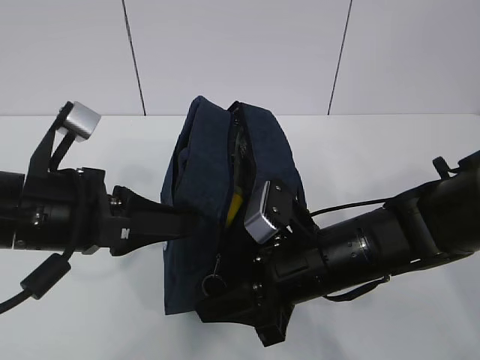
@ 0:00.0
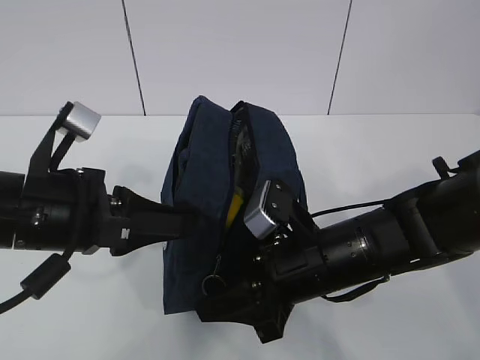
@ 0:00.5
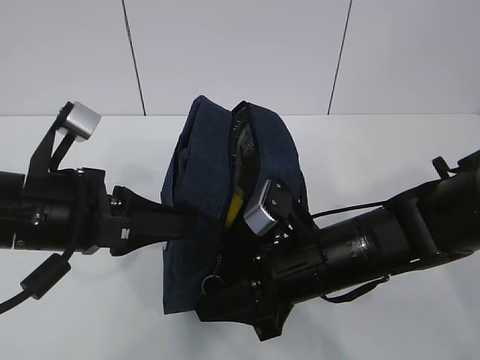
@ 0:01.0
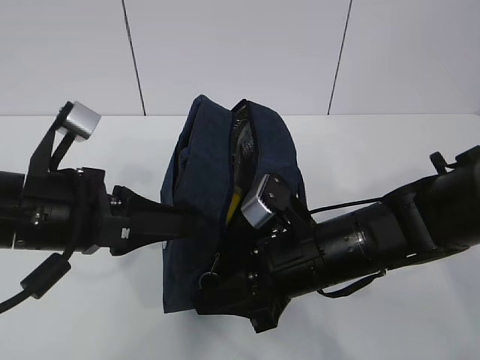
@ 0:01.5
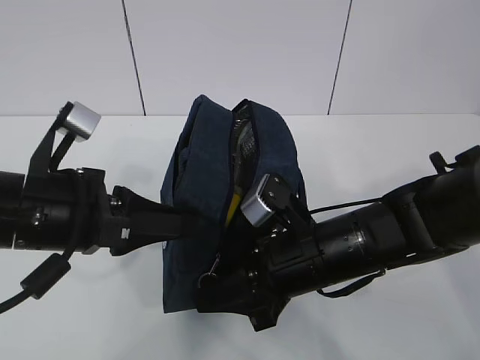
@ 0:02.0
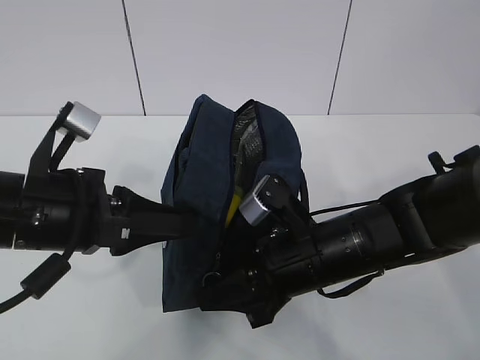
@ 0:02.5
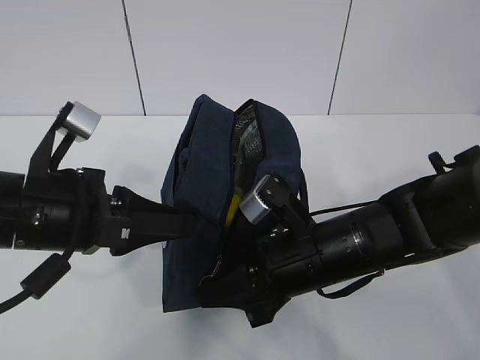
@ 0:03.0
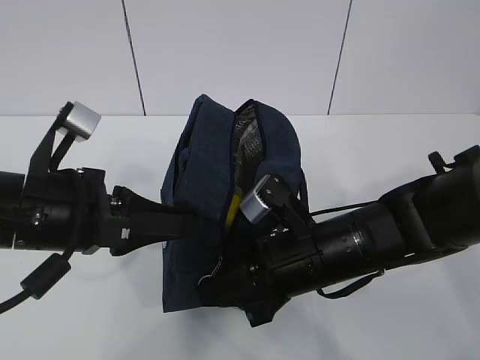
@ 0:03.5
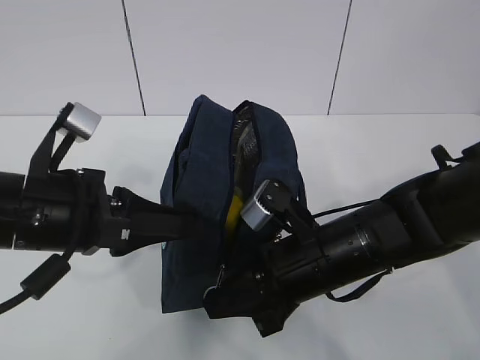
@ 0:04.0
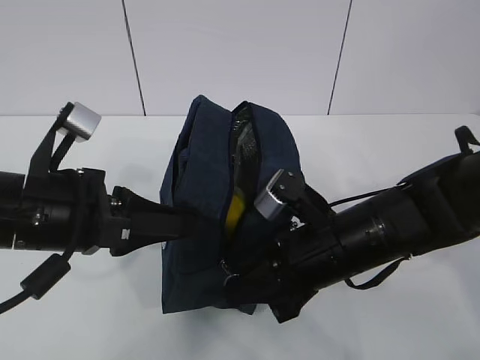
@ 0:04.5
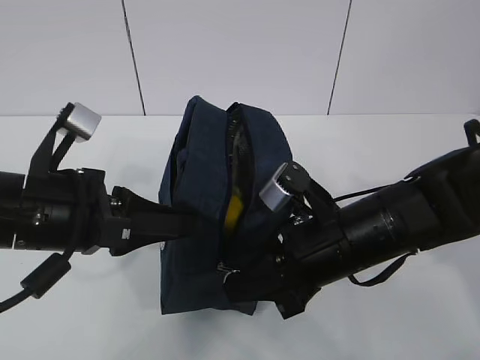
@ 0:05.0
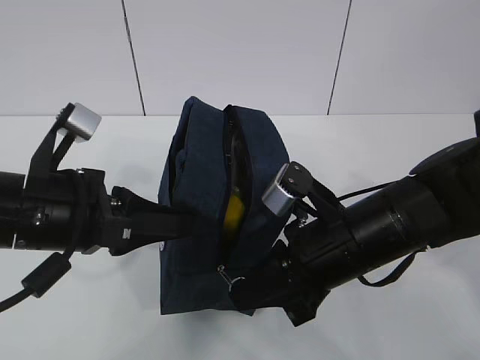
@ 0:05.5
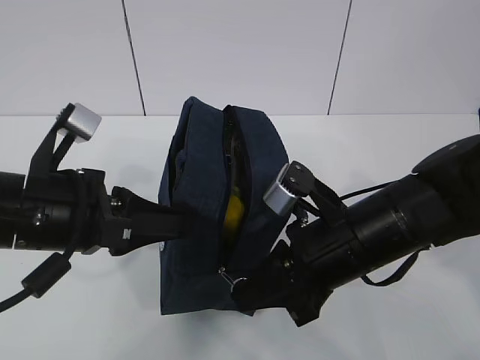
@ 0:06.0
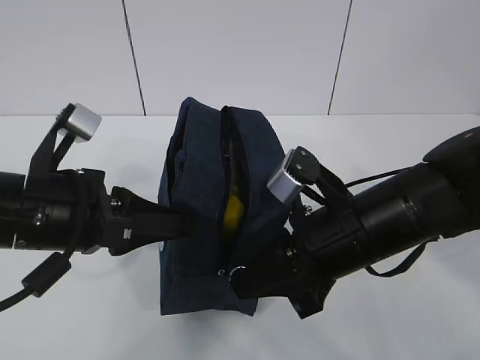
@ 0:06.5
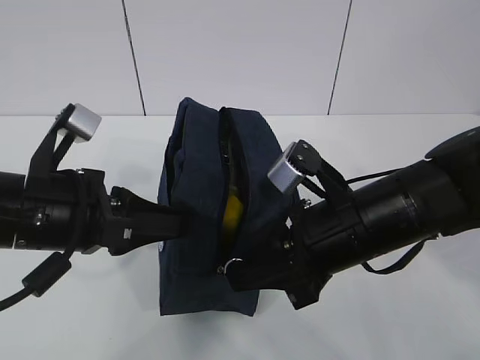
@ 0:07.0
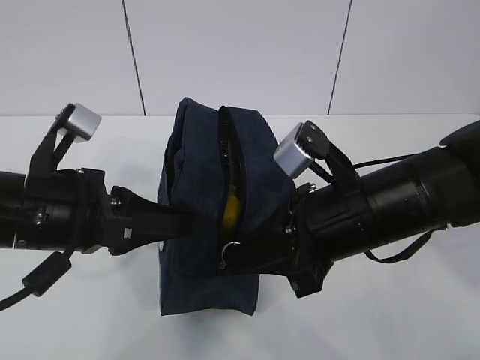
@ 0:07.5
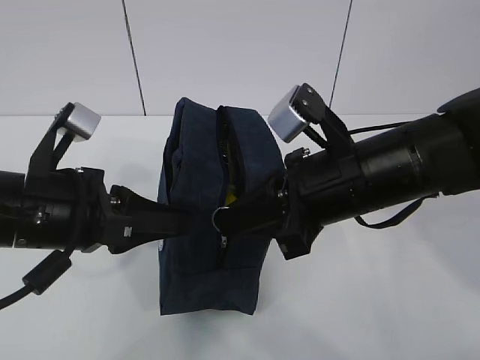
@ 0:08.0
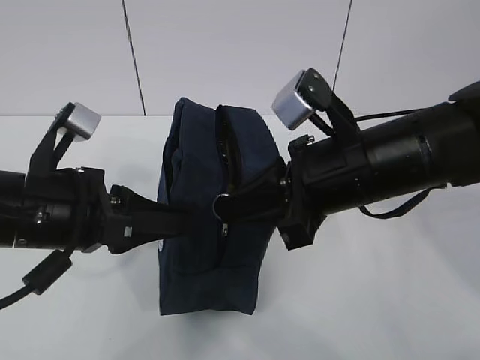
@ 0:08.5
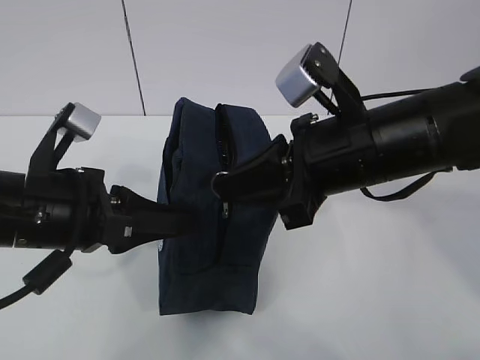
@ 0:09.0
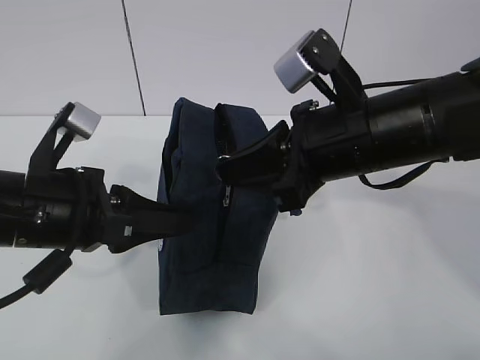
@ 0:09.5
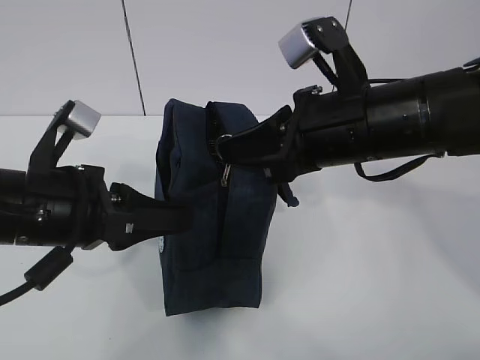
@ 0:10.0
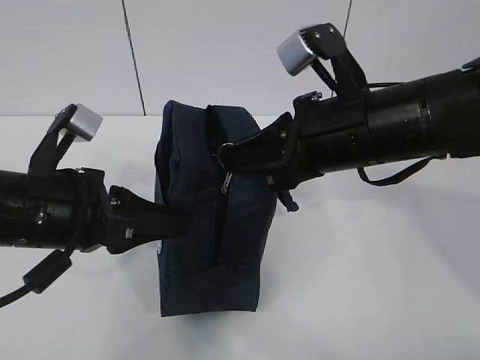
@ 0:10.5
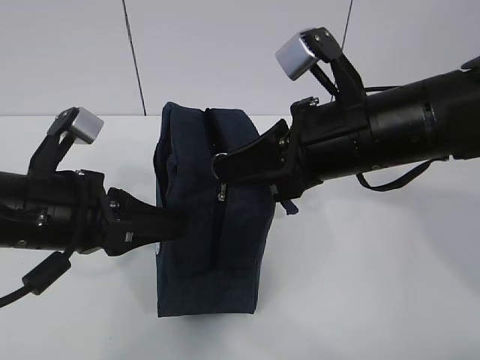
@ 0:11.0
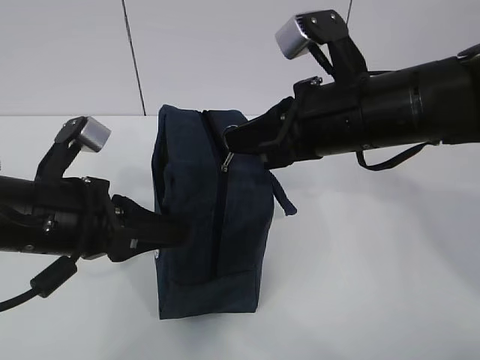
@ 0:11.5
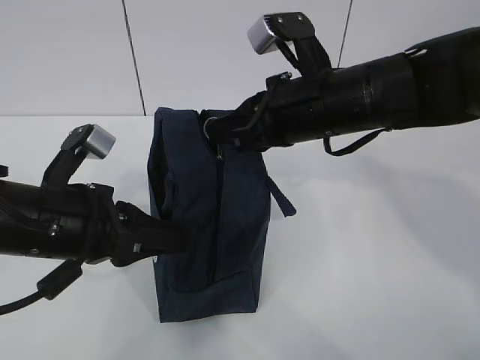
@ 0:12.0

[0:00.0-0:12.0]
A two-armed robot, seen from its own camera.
Step, 0:00.5 to 0:07.5: Pull the zipper with your right hand.
0:00.0 to 0:02.0: The grippers make only small movements.
0:02.0 to 0:04.0: The right gripper closes up.
0:04.0 to 0:06.0: The grippers move only a little.
0:06.0 to 0:08.0: The right gripper shifts approximately 5 cm upward.
0:08.0 to 0:10.0: The grippers stay close to where they were, moving slightly.
0:10.0 to 0:12.0: The right gripper moves about 5 cm.

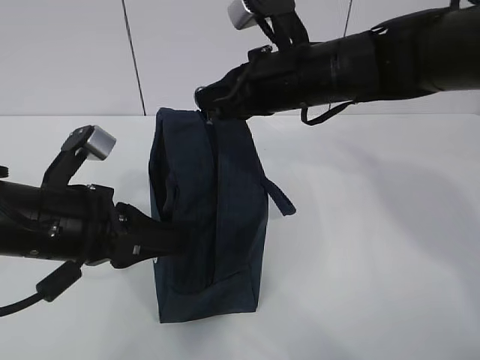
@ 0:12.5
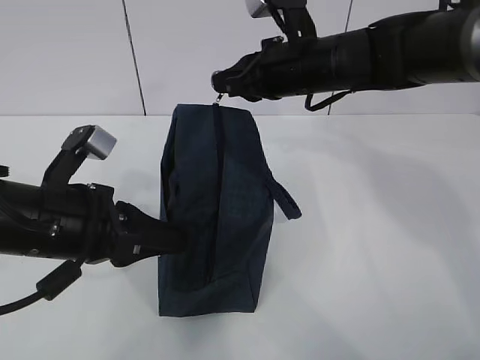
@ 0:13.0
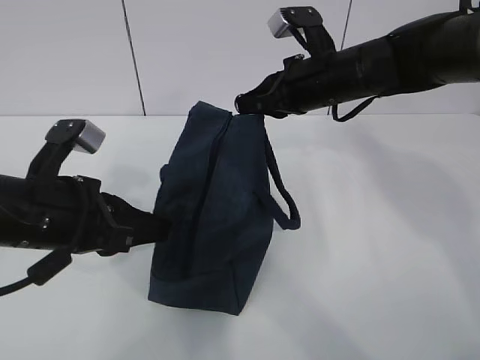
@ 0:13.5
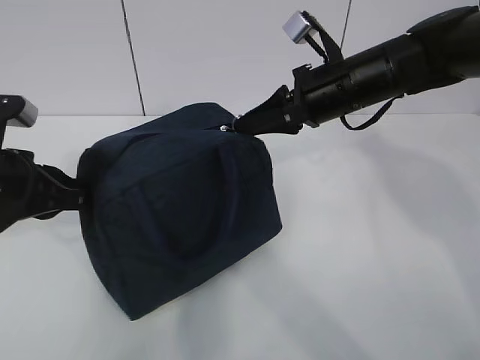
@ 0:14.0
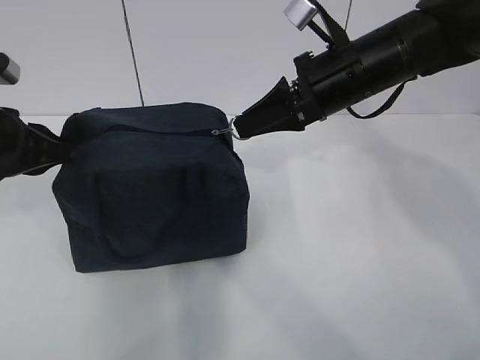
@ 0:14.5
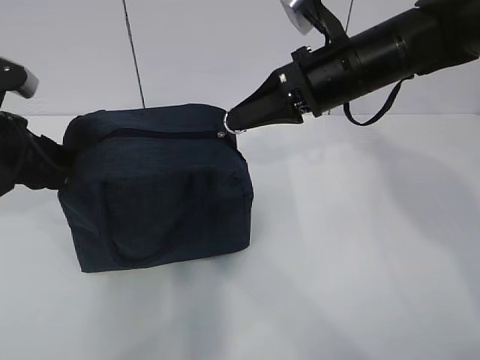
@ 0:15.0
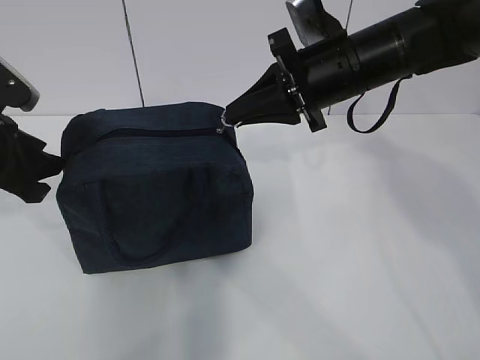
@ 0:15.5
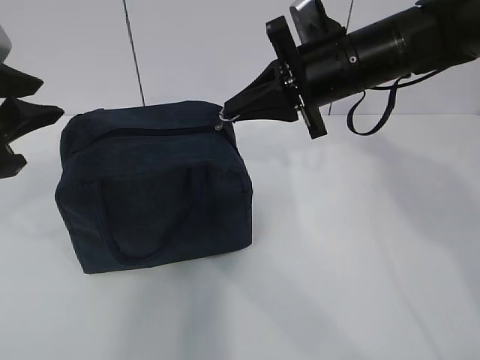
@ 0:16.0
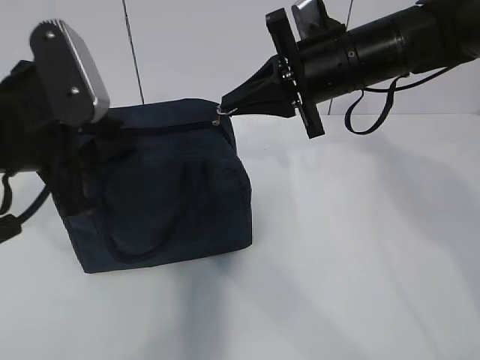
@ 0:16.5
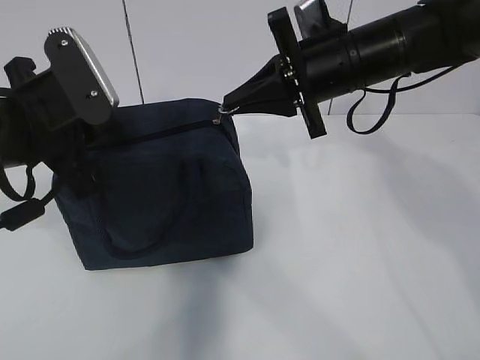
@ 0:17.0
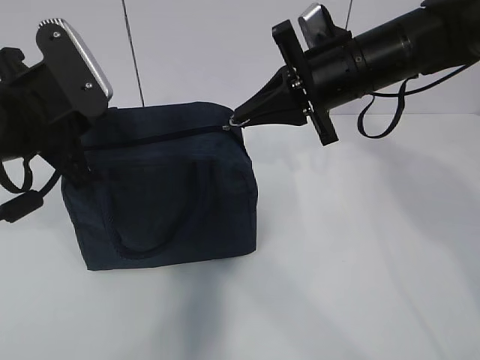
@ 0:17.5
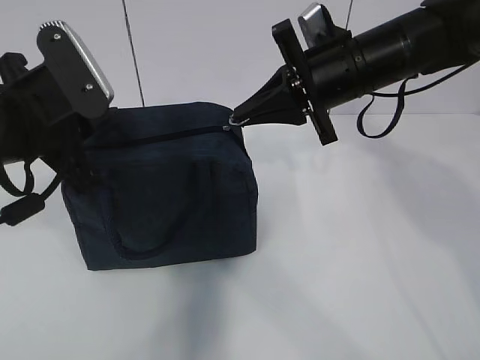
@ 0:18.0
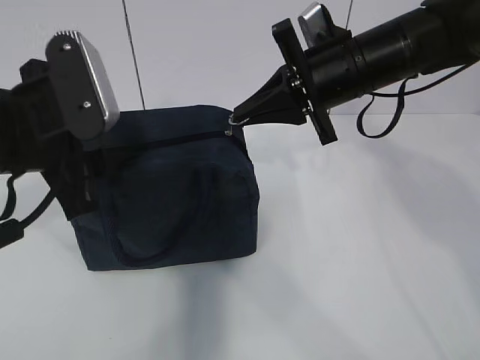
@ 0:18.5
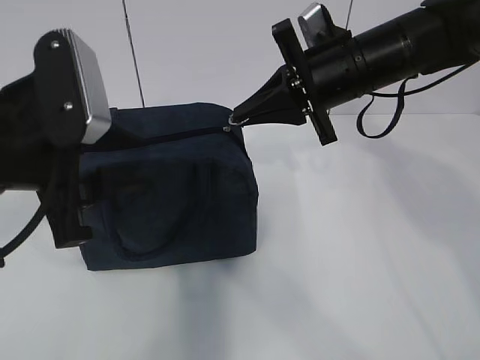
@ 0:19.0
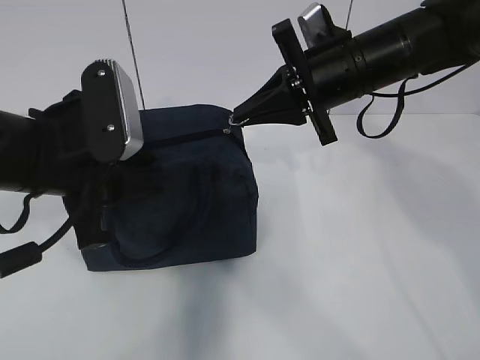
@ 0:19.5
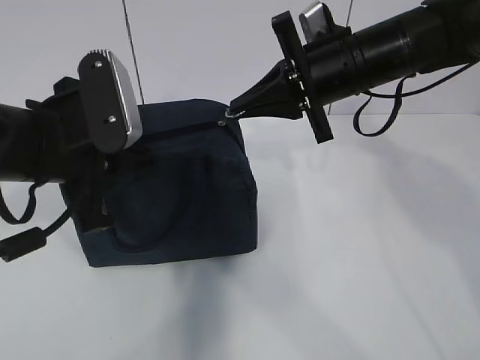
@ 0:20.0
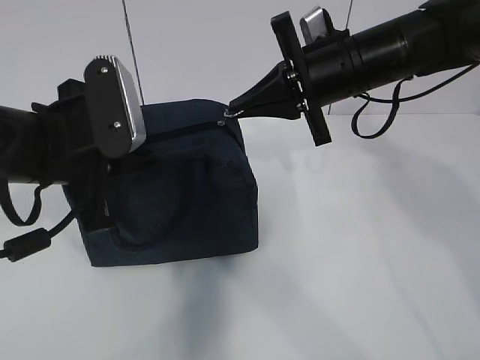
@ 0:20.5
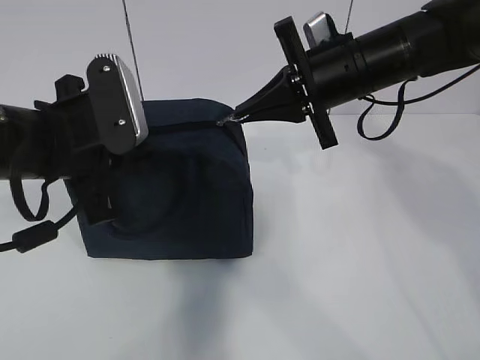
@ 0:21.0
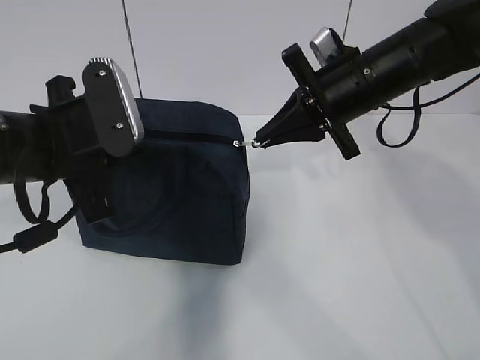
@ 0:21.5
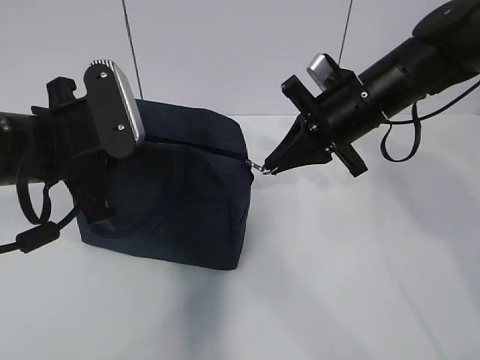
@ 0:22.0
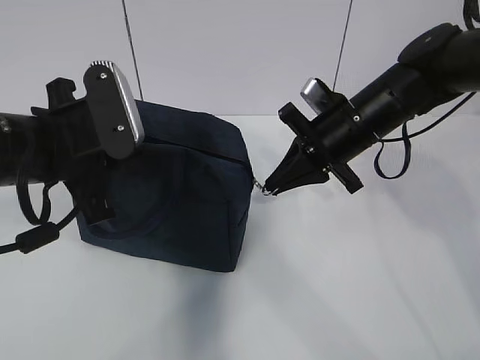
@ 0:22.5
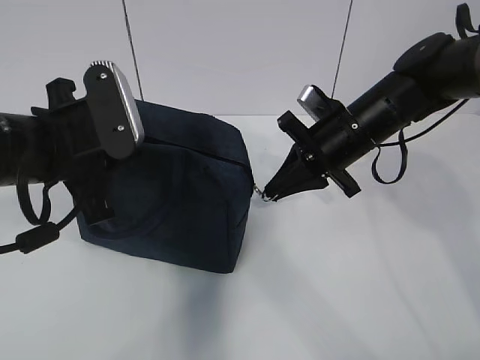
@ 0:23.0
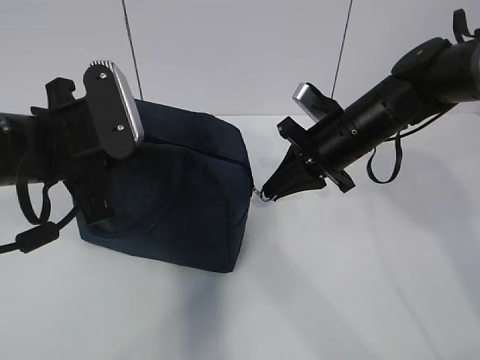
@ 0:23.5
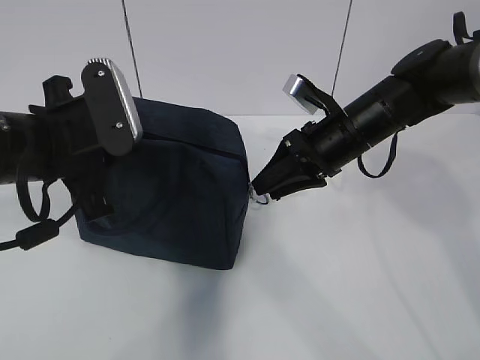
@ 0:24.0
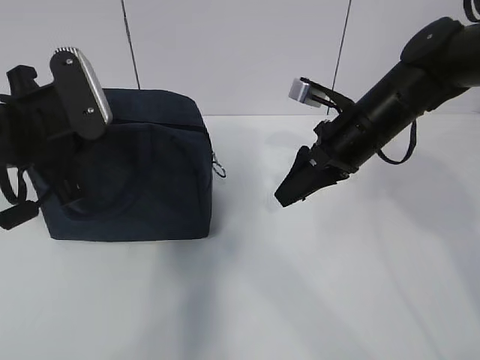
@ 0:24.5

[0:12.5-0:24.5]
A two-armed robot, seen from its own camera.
0:12.5 to 0:14.5: The left gripper heads to the left and forward, covering about 10 cm. Meanwhile the right gripper travels to the right by about 5 cm.
0:14.5 to 0:16.5: The left gripper is displaced to the right by about 5 cm, and opens up.
0:16.5 to 0:18.5: The left gripper closes, then opens again.
0:18.5 to 0:20.5: The left gripper closes its fingers.
0:20.5 to 0:22.5: The right gripper shifts approximately 5 cm downward.
0:22.5 to 0:24.5: The right gripper opens.

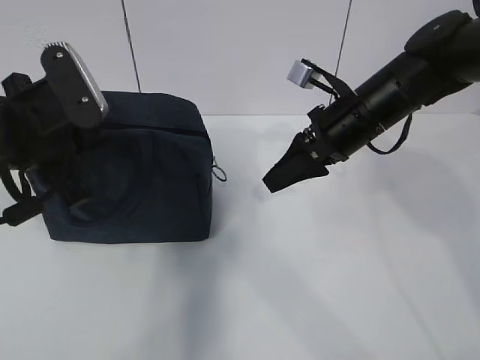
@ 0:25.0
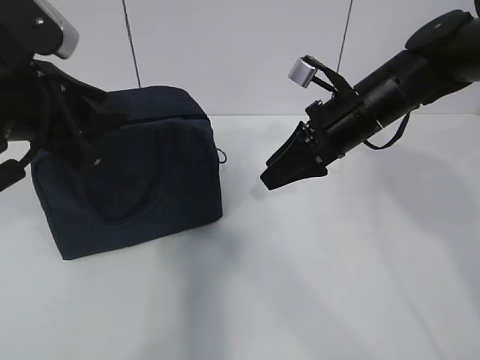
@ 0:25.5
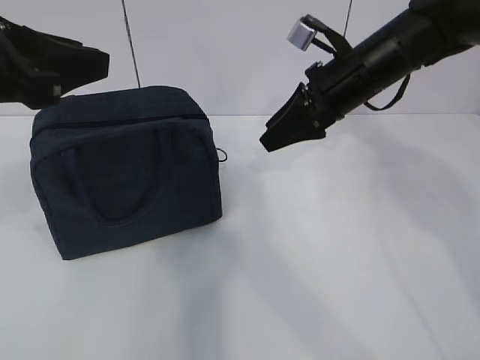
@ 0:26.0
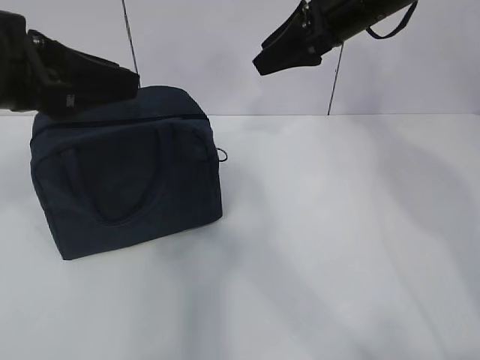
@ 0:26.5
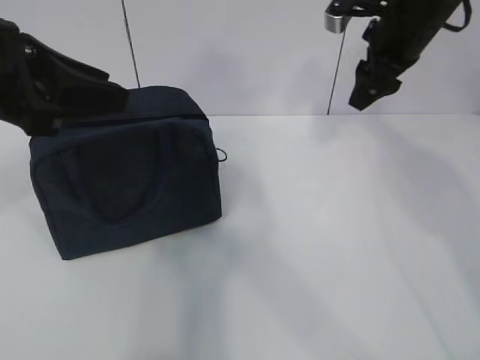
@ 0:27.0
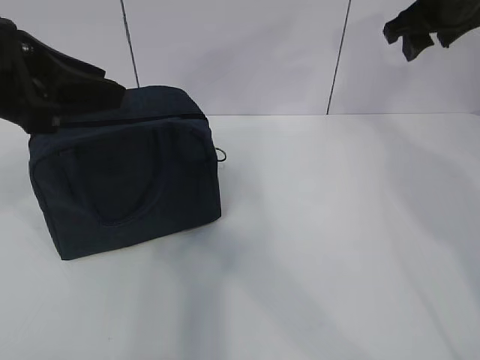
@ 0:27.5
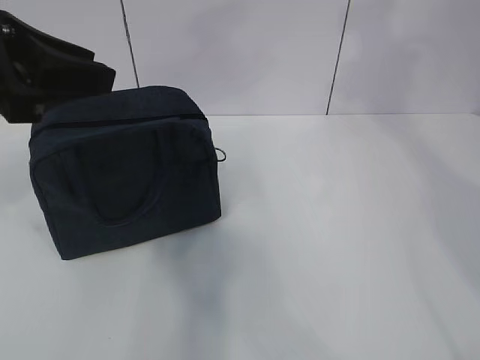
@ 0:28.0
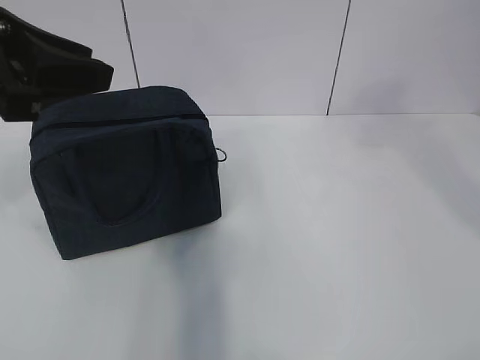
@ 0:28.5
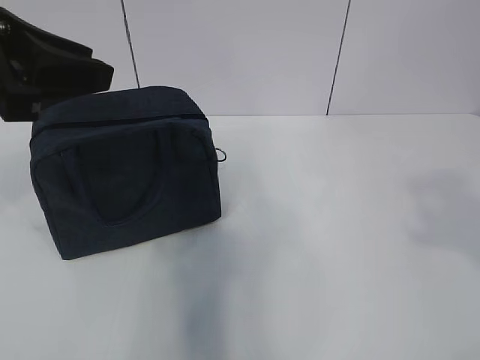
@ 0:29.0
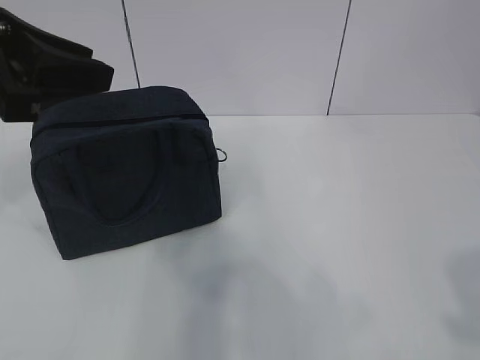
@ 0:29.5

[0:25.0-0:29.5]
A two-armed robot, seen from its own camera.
0:25.0 to 0:27.0: The grippers both shift upward by about 10 cm. The left gripper opens its fingers.
0:27.0 to 0:29.5: The right gripper heads backward, covering roughly 40 cm.
